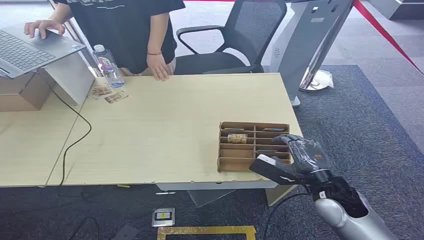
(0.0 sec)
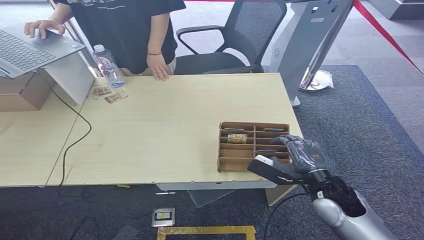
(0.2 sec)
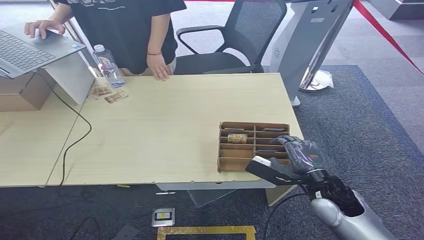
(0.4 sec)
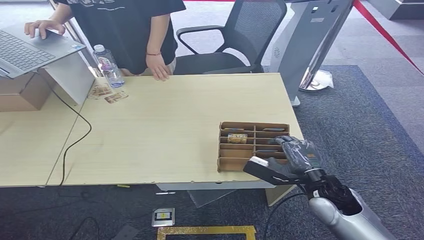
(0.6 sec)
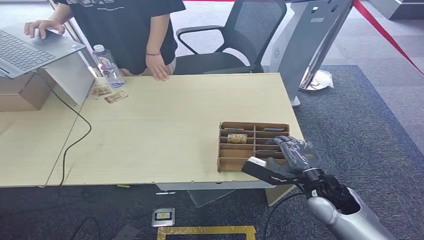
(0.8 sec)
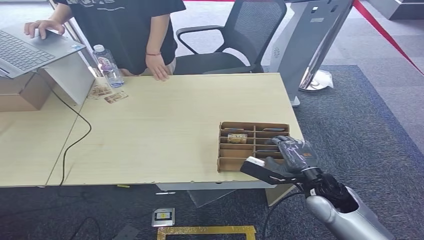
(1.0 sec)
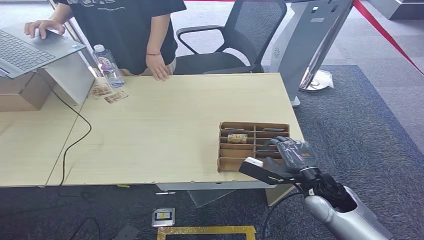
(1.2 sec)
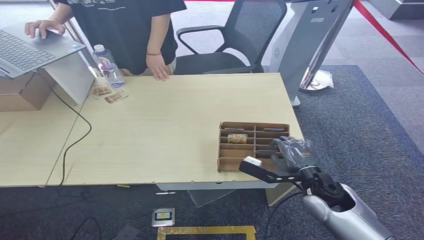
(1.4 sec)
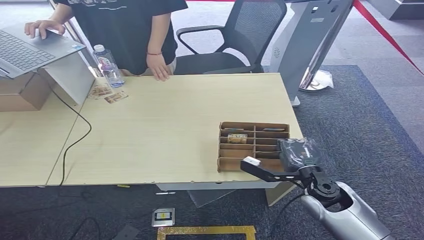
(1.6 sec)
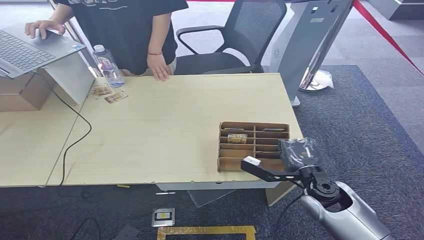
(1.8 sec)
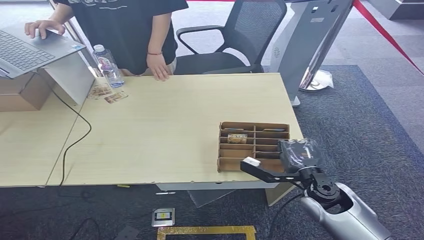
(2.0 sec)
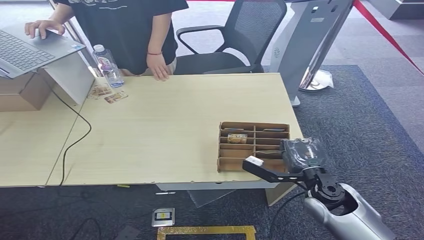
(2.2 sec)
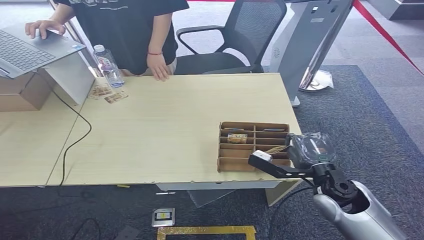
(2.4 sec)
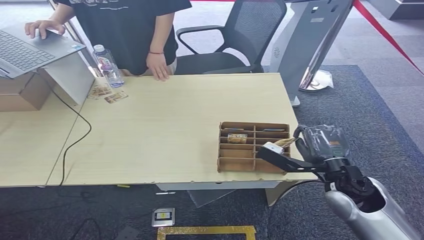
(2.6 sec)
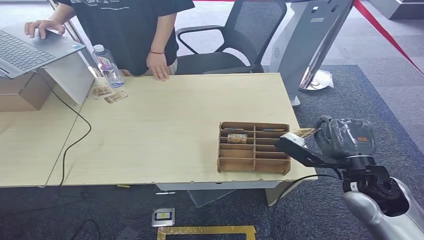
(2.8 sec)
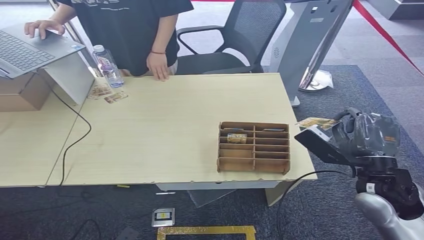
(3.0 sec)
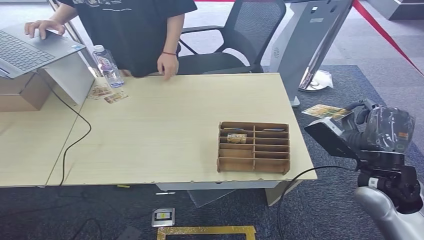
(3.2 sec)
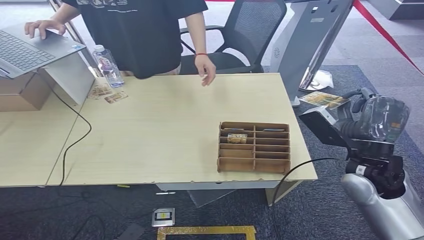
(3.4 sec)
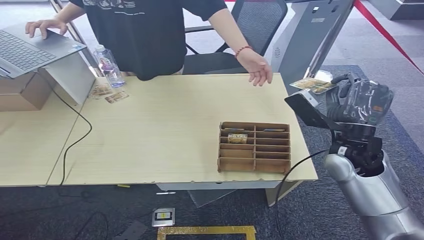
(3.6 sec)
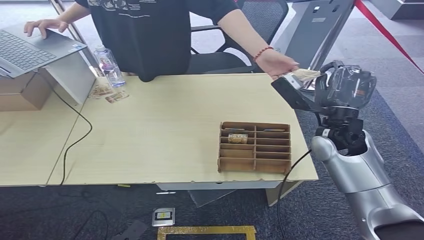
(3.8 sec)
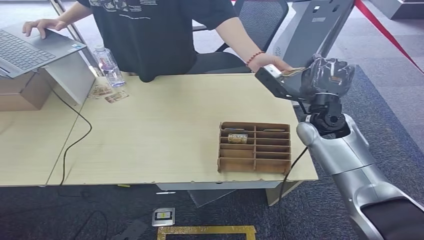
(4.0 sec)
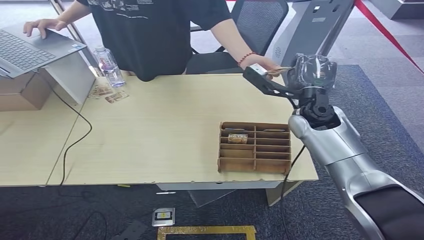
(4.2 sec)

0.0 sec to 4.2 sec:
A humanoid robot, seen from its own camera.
Step, 0.0 sec to 2.4 sec: Pick up the room card from the card holder.
Step, 2.6 sec to 4.2 sec: Hand the room card to the target.
1.4 sec to 2.8 sec: The right hand shifts about 10 cm upward.
2.8 sec to 4.2 sec: The right hand goes roughly 20 cm forward.
